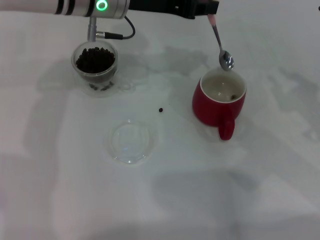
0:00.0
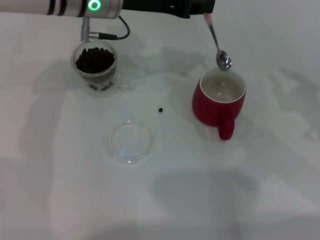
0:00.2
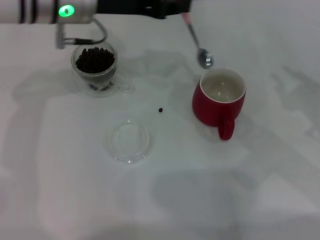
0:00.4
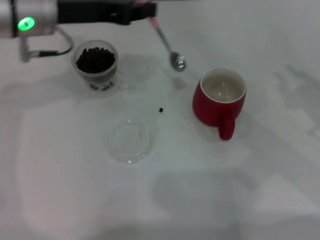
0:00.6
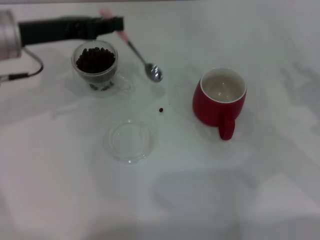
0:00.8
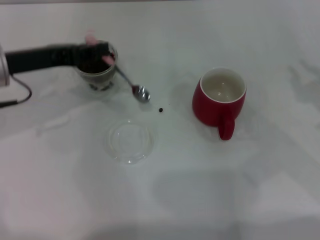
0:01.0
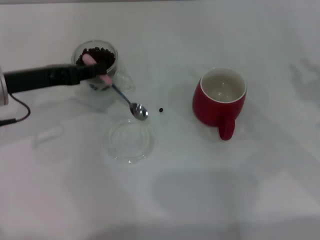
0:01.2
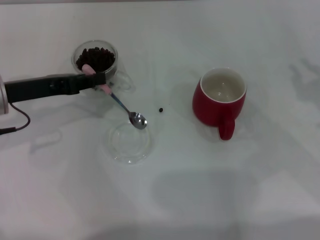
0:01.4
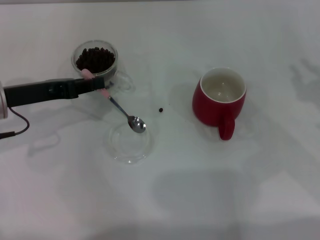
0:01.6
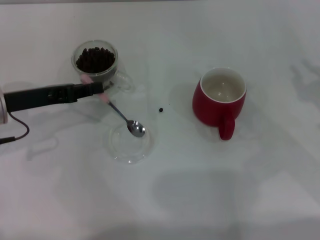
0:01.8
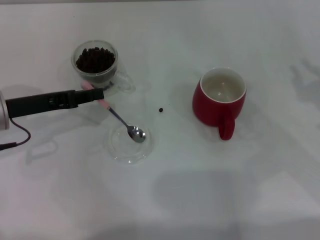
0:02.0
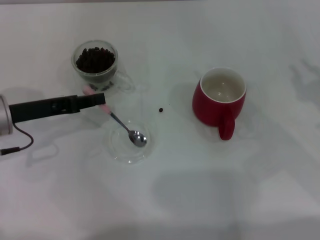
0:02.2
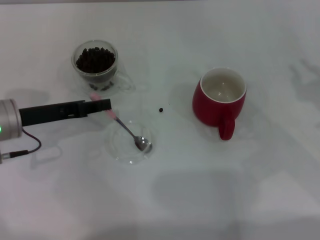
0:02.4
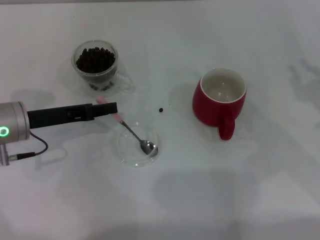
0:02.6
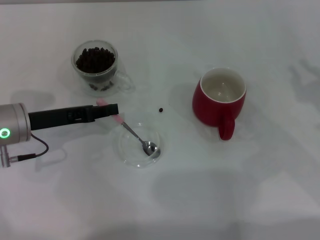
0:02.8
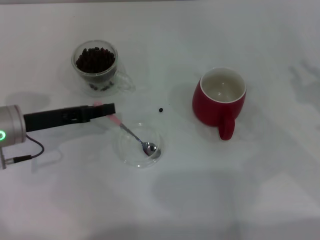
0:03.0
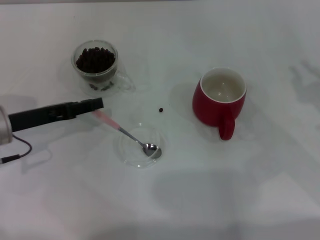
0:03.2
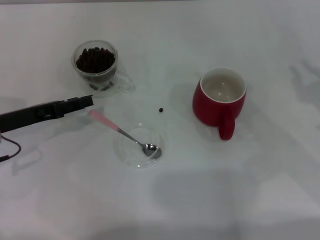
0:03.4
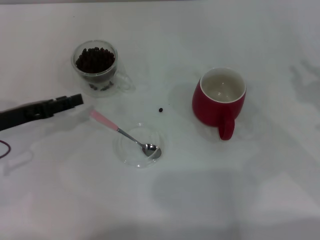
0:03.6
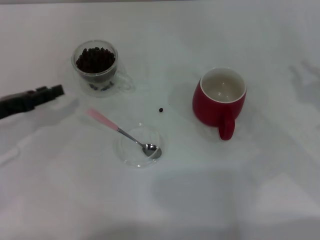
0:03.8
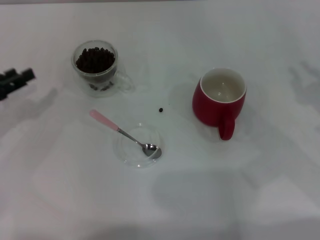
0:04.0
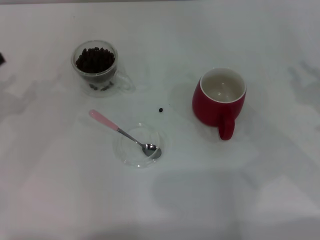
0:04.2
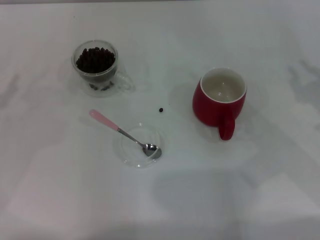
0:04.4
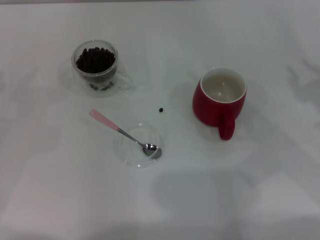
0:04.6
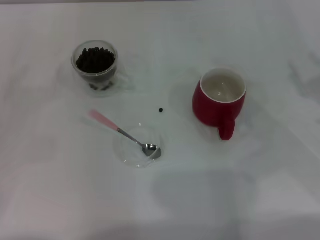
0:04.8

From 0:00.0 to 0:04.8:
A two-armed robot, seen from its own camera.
Task of the whole recording: Use a pink spoon to take out the coffee beans from the glass and pour them into the red cup.
From 0:00.0 to 0:01.6: The left gripper shifts roughly 20 cm to the left, backward and downward.
From 0:01.6 to 0:03.2: The grippers move only a little.
From 0:03.2 to 0:04.8: The left gripper goes roughly 10 cm to the left, and opens up.
